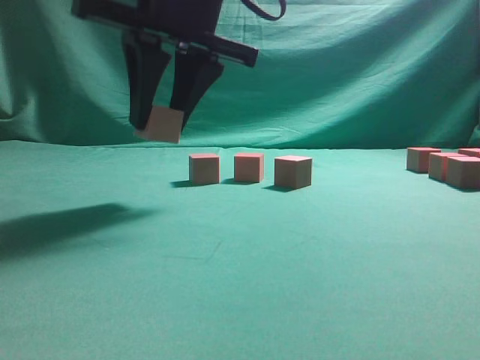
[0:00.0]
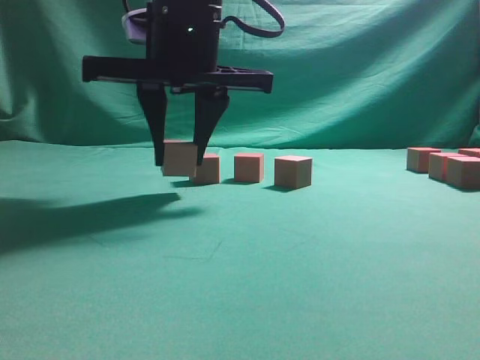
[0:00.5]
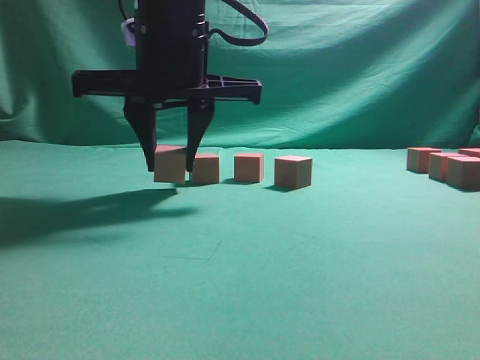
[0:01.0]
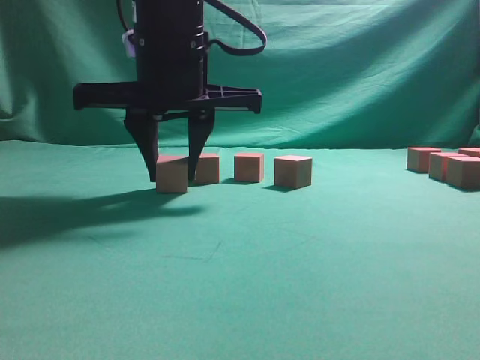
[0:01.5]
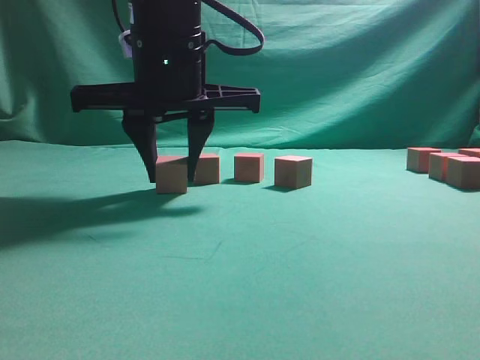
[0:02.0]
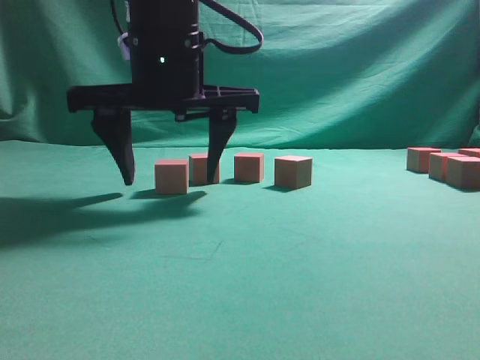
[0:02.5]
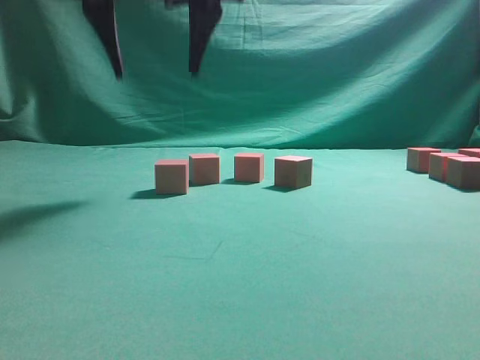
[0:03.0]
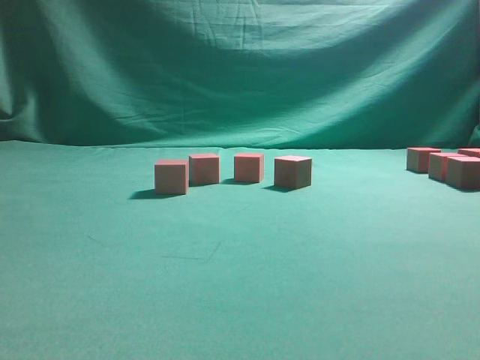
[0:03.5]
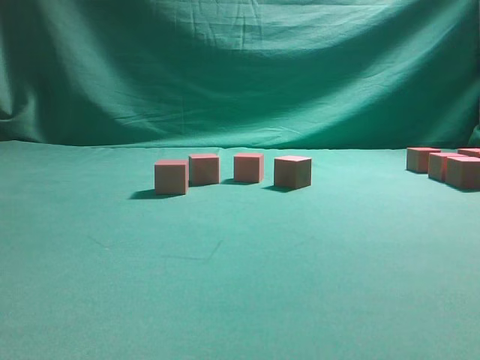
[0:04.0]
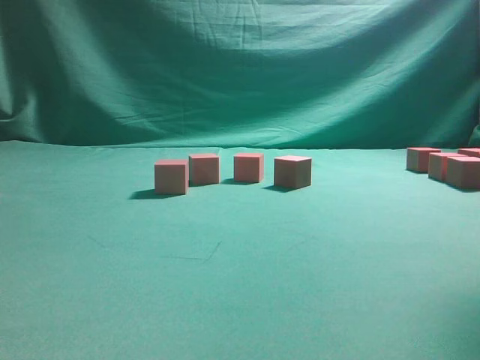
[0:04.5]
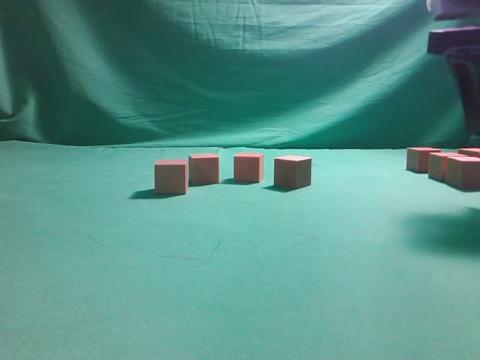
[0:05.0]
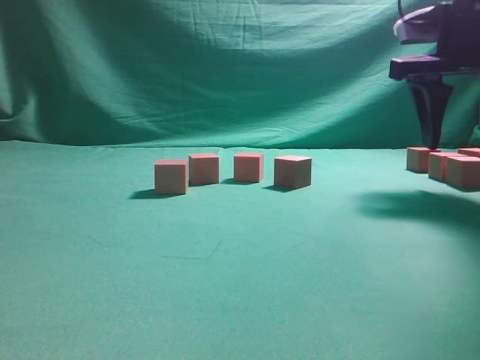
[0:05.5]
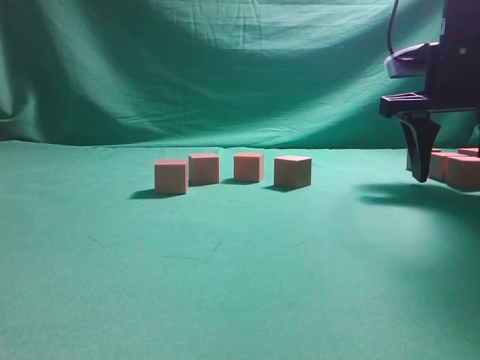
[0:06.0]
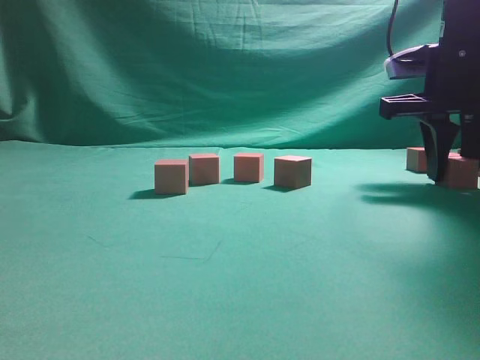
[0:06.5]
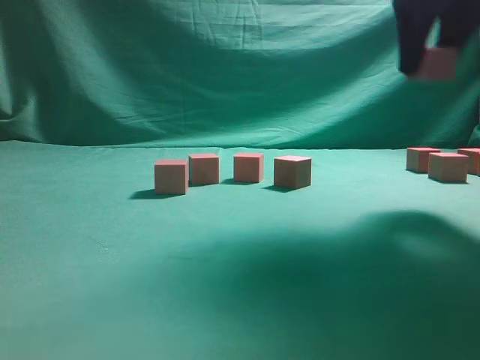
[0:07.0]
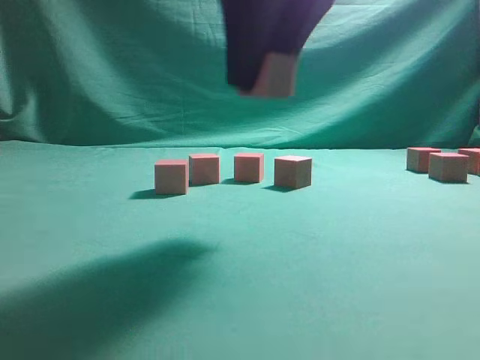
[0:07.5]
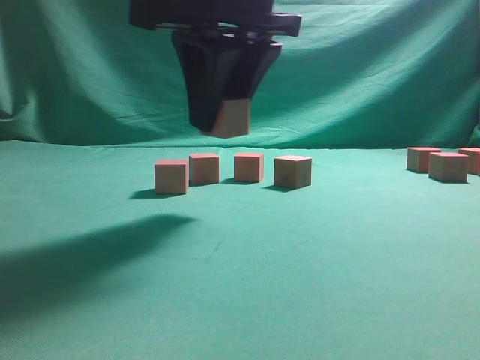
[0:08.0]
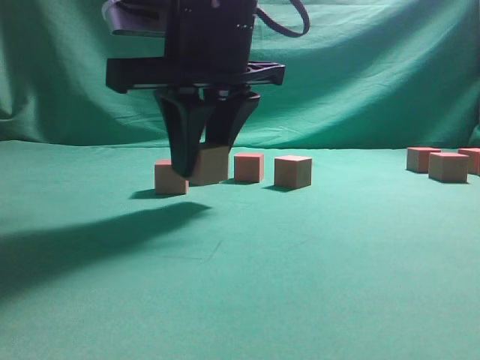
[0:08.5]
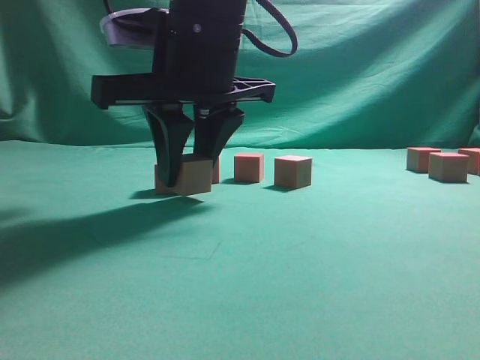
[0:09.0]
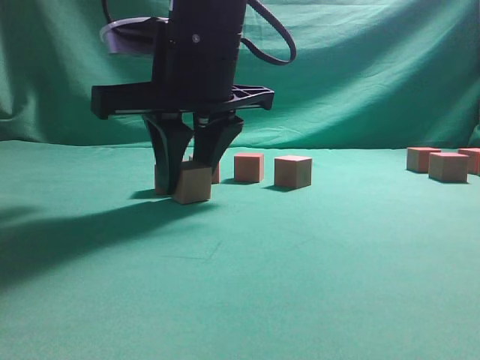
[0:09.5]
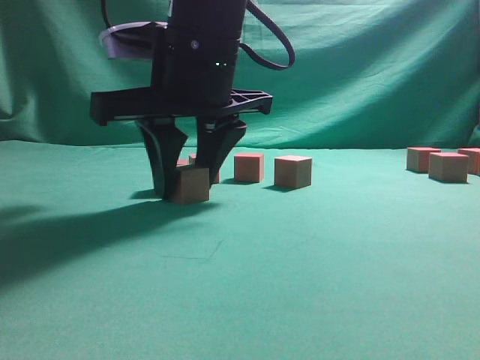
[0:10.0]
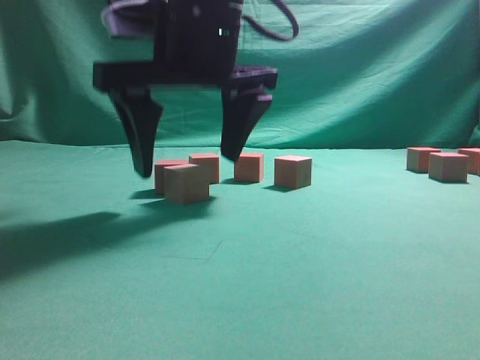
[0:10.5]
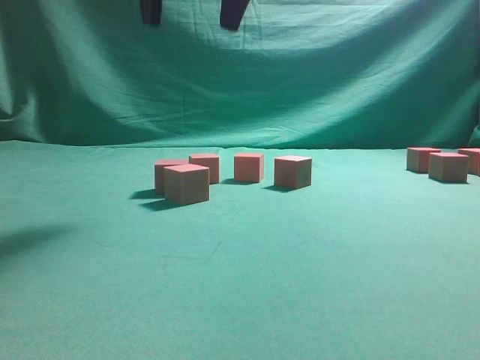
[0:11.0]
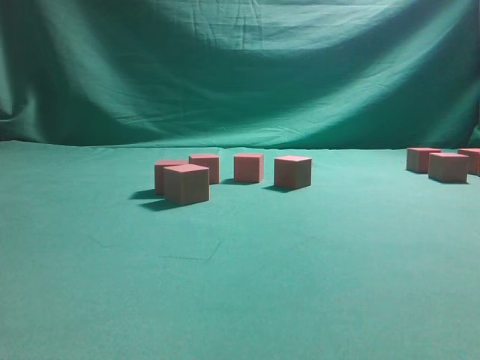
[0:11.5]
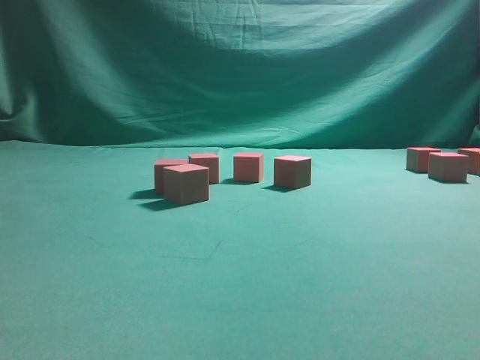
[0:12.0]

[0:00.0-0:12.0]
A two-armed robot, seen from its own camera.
Task of the whole recording: pick up the multiple cubes in two columns one by one and place them in another position on the table.
Step, 0:00.0 to 0:03.0: Place the block at the correct position to assemble the letter S.
Step, 0:03.5 to 0:06.5: Pick up the block on the table.
Step, 0:07.0 to 0:10.5: Place the block at the correct position to assemble the letter S.
0:00.0 to 0:02.0: The right gripper travels downward by about 5 cm.
0:02.0 to 0:04.0: The right gripper travels upward and to the right by about 30 cm, and opens up.
0:04.0 to 0:06.0: The right gripper travels downward and forward by about 30 cm.
0:06.0 to 0:08.0: The right gripper heads to the left and backward, covering some 25 cm, and closes its fingers.
0:08.0 to 0:10.0: The right gripper is displaced downward by roughly 5 cm.
0:10.0 to 0:12.0: The right gripper is displaced to the right and upward by about 35 cm, and opens.

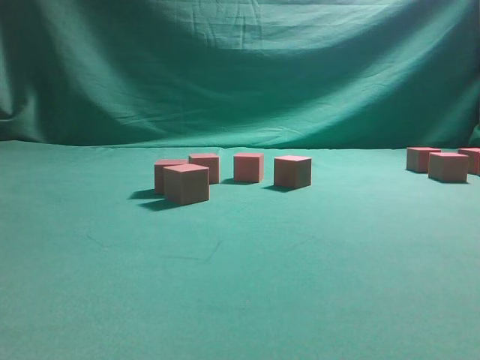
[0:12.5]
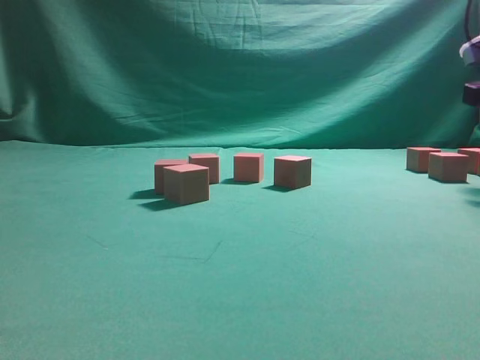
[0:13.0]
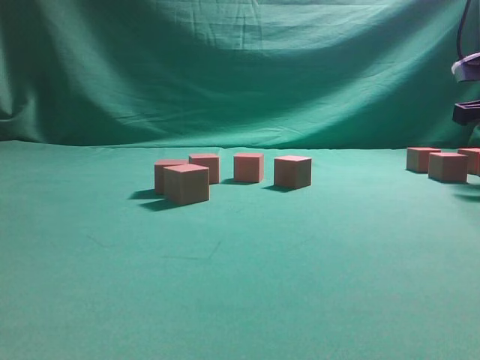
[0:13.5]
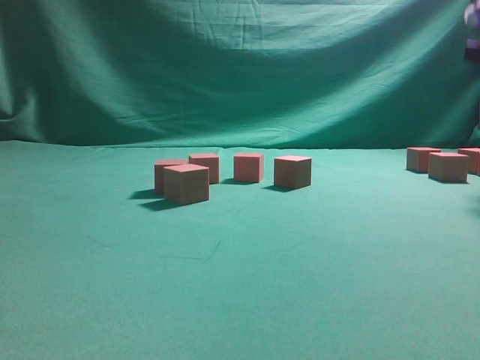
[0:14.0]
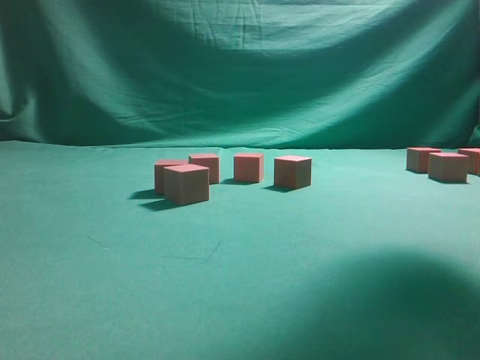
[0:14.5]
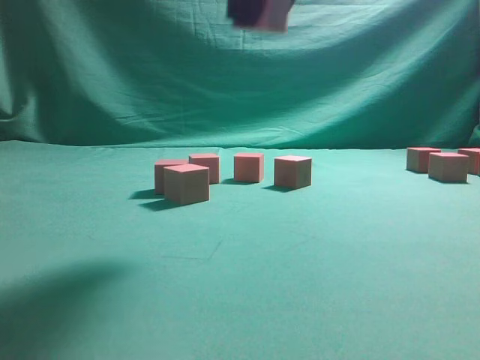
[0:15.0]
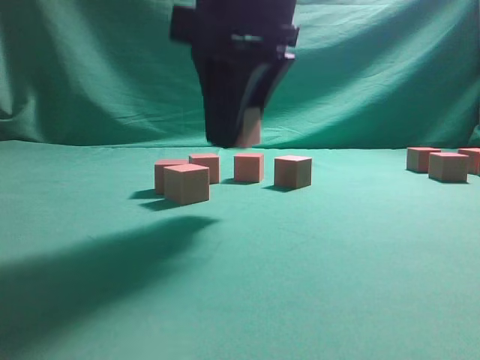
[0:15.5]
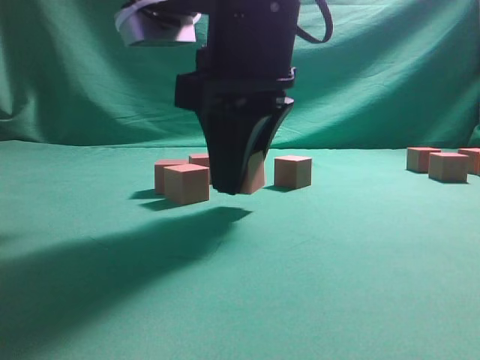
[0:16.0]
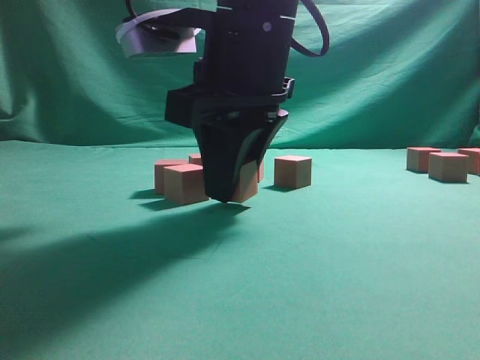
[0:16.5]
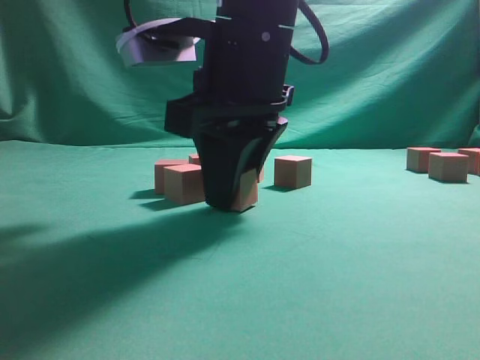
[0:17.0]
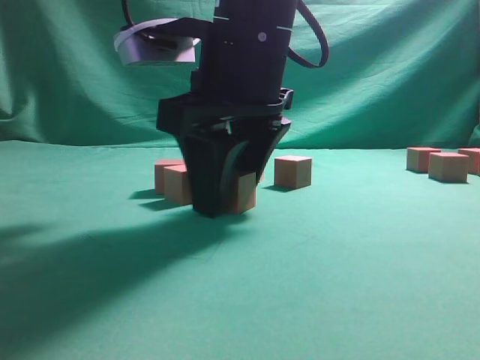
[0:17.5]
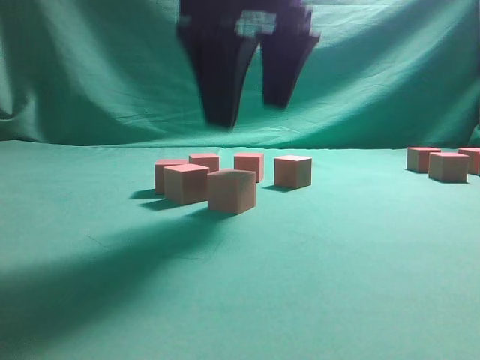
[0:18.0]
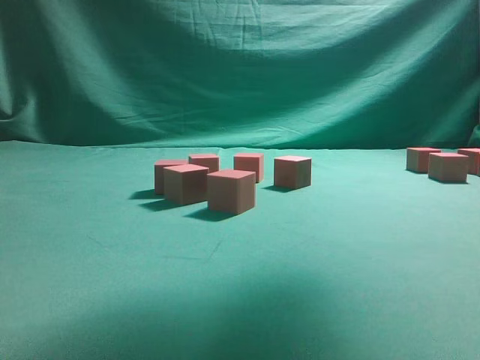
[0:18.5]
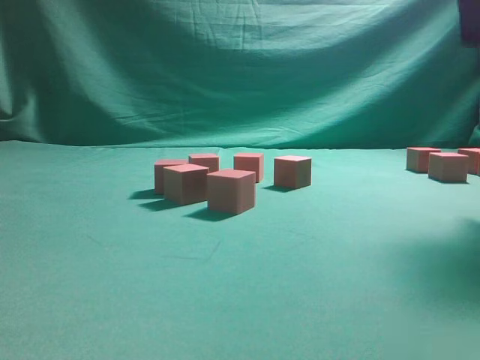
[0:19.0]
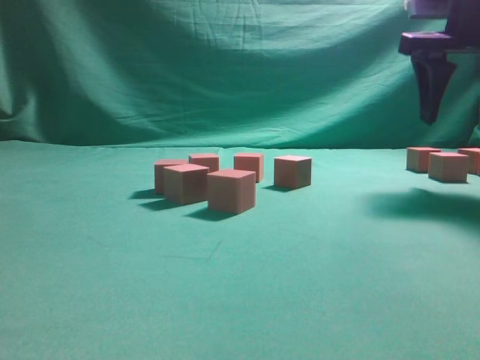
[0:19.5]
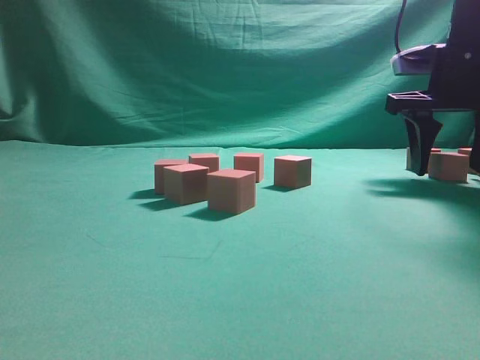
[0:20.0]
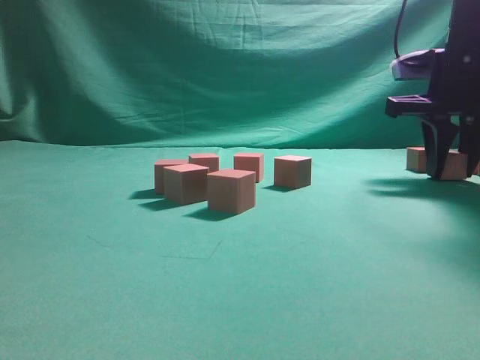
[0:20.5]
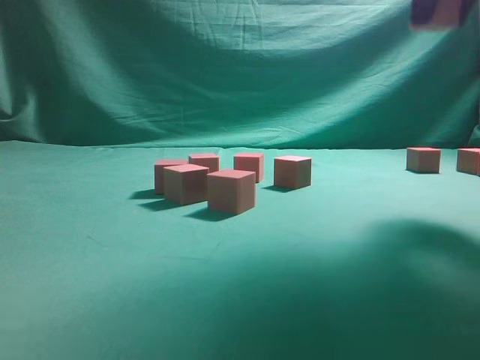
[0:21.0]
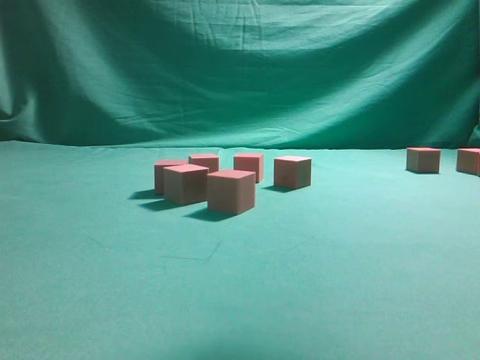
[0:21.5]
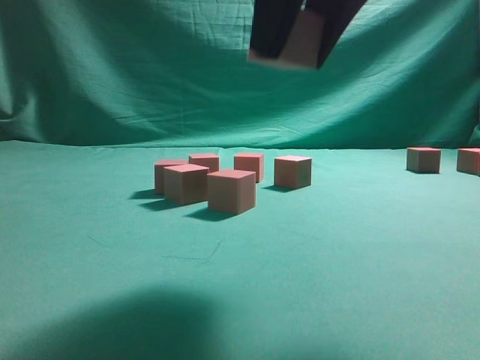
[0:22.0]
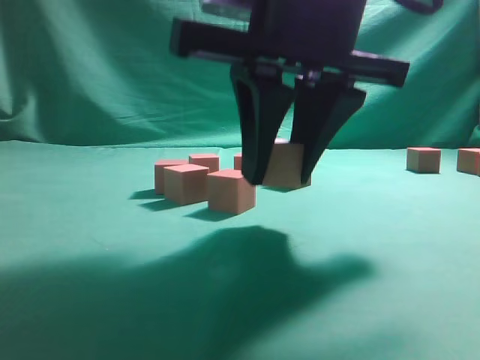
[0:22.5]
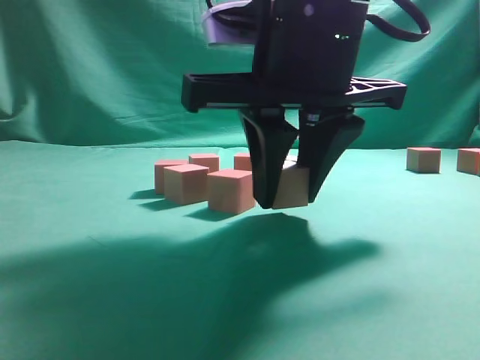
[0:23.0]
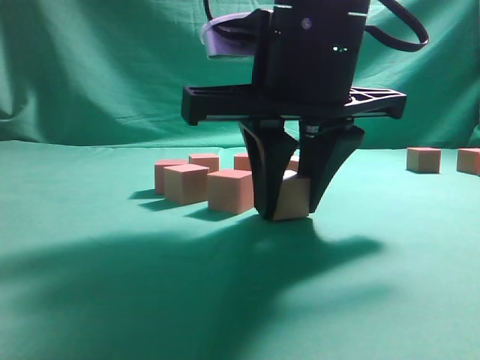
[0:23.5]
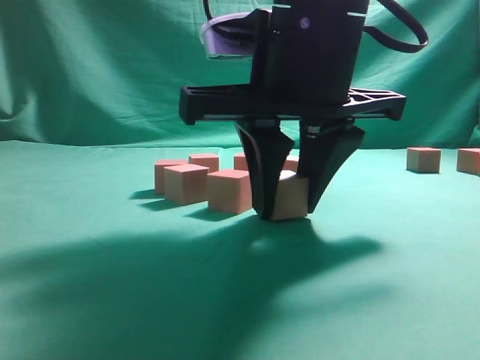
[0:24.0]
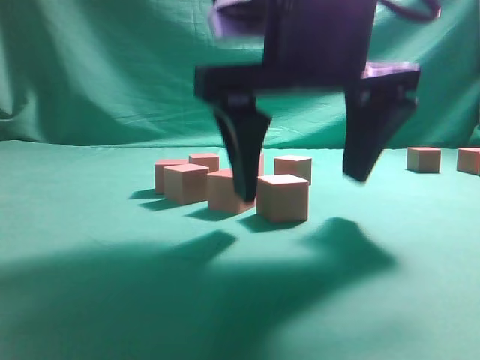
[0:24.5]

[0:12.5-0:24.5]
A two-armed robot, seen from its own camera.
Task of the whole recording: pick up the multiple cubes in two columns one by one and place them in another position on the table.
Step, 0:12.5 to 0:14.5: Pick up the block on the table.
Step, 0:15.5 to 0:18.0: Place the block at the correct position to assemble the letter S.
Step, 0:18.5 to 0:20.5: Pick up the block on the table.
0:12.5 to 0:14.5: The right gripper heads to the left, covering roughly 10 cm, moves roughly 10 cm downward and comes back, and closes.
0:14.5 to 0:16.5: The right gripper goes about 25 cm to the left and downward.
0:16.5 to 0:18.5: The right gripper travels upward and to the right by roughly 20 cm, and opens up.
0:18.5 to 0:20.5: The right gripper shifts about 25 cm downward, to the right and forward, and closes its fingers.
0:20.5 to 0:22.5: The right gripper goes about 25 cm to the left and backward.
0:22.5 to 0:24.5: The right gripper opens.

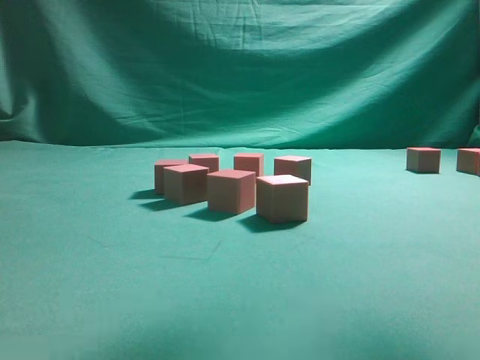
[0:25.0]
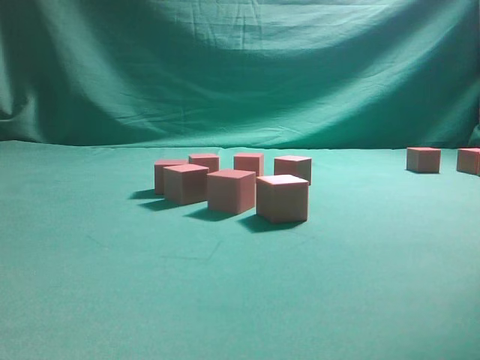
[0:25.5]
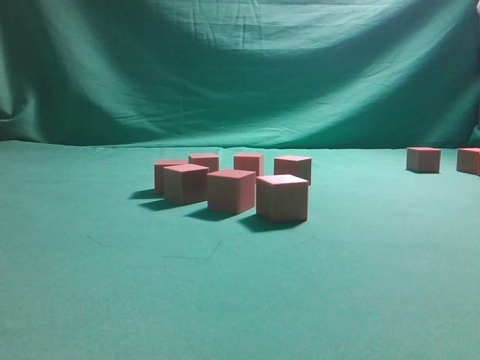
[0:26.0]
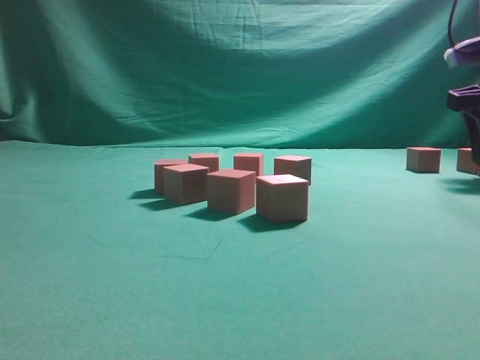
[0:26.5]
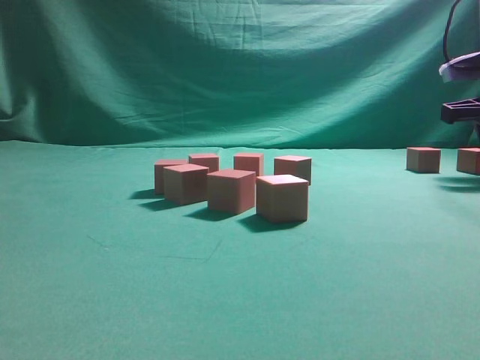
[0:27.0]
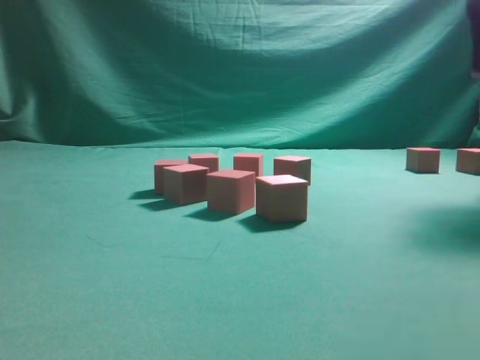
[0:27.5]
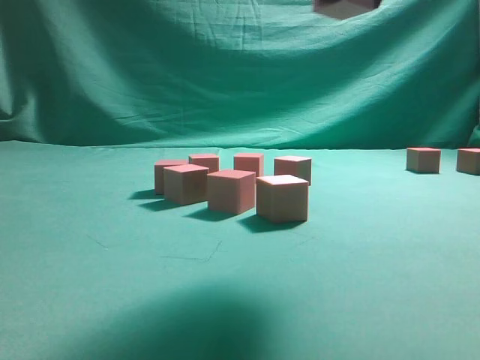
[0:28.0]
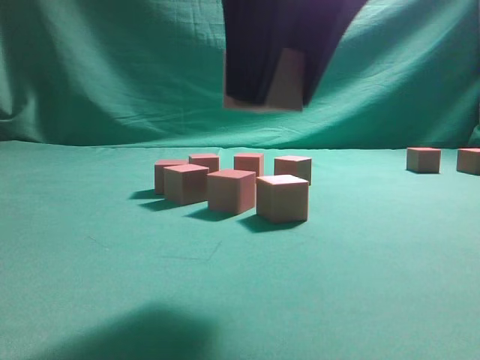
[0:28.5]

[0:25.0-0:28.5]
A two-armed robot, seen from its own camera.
Task of the whole recording: pick up the multiple cubes in two columns one by one and place them in another position on the table.
Step, 0:25.0 to 0:27.5: Pick up the block on the table.
0:25.0 to 0:27.0: The right gripper heads to the right, forward and downward, covering about 30 cm, and closes.
0:27.0 to 0:28.5: The right gripper moves to the left and backward, roughly 35 cm.
